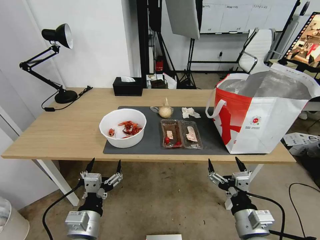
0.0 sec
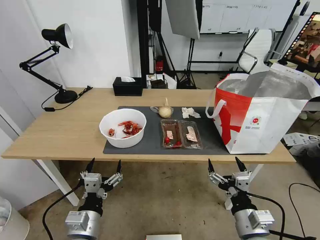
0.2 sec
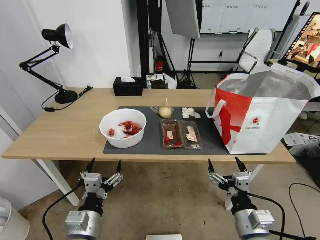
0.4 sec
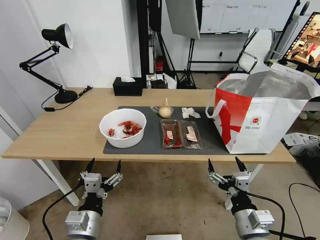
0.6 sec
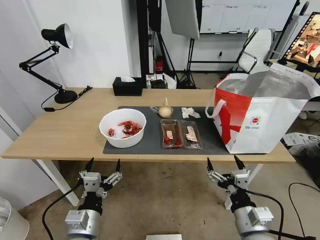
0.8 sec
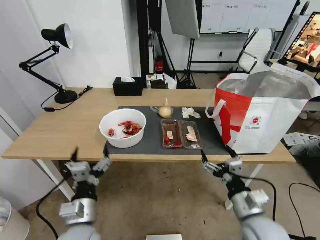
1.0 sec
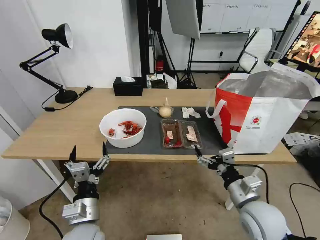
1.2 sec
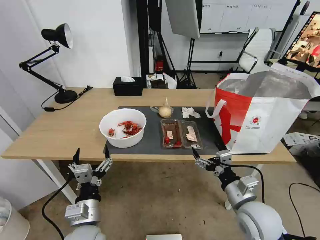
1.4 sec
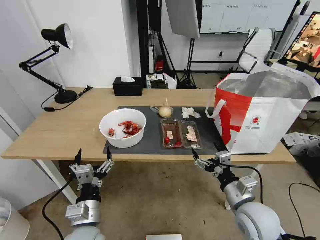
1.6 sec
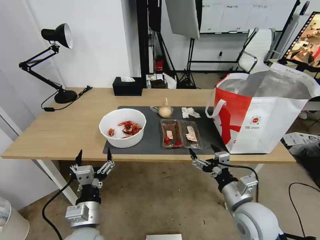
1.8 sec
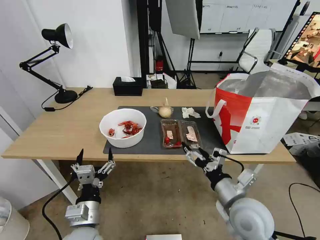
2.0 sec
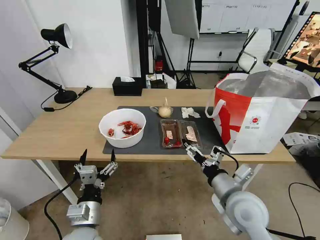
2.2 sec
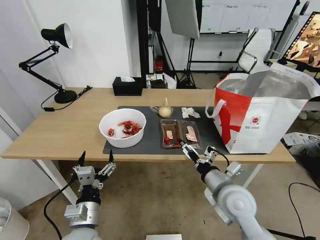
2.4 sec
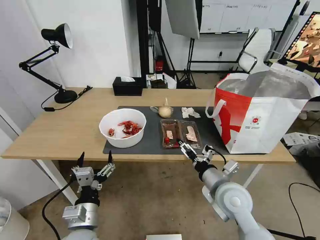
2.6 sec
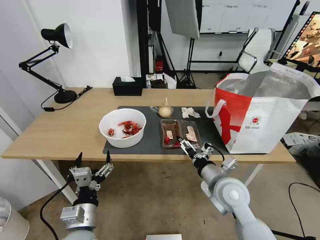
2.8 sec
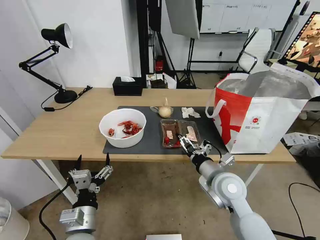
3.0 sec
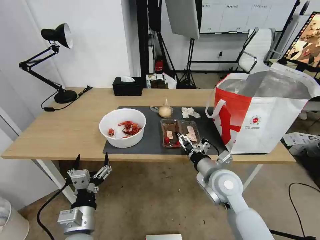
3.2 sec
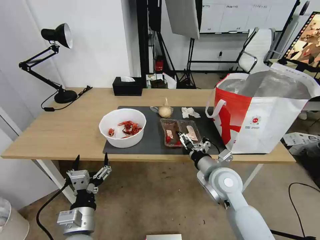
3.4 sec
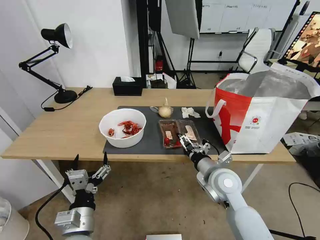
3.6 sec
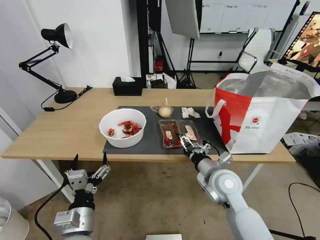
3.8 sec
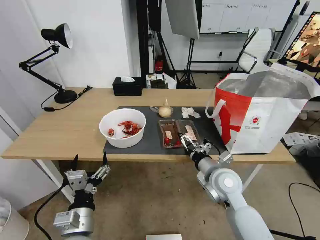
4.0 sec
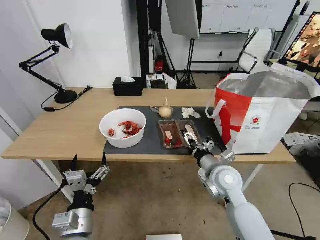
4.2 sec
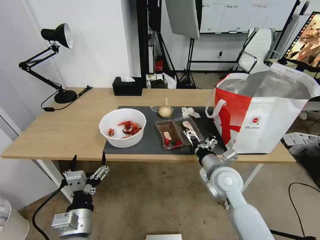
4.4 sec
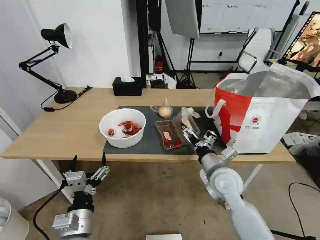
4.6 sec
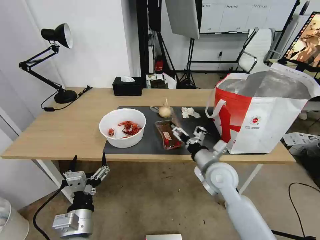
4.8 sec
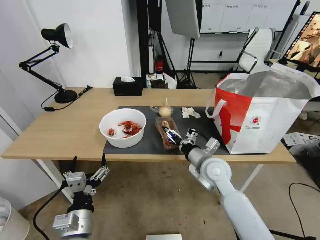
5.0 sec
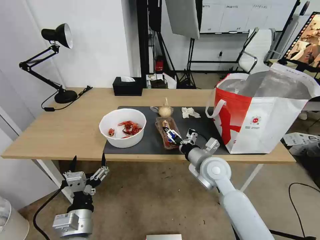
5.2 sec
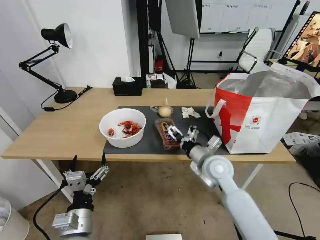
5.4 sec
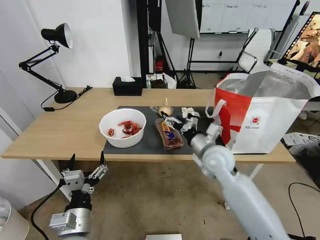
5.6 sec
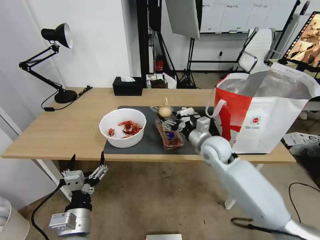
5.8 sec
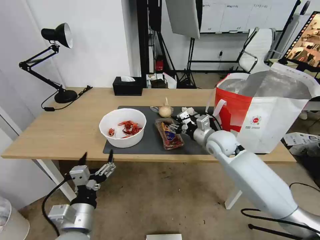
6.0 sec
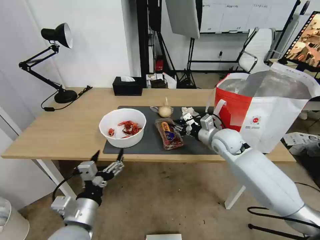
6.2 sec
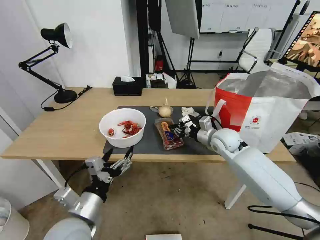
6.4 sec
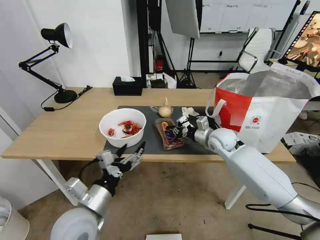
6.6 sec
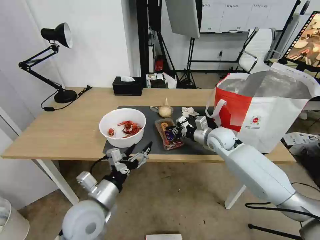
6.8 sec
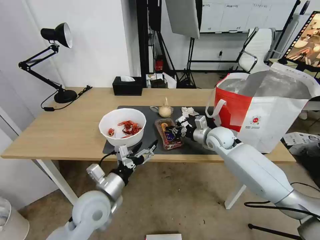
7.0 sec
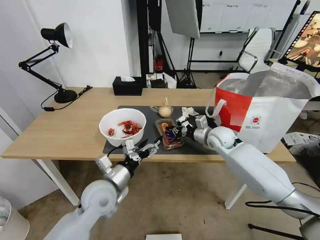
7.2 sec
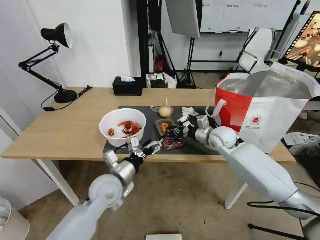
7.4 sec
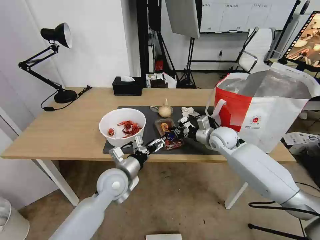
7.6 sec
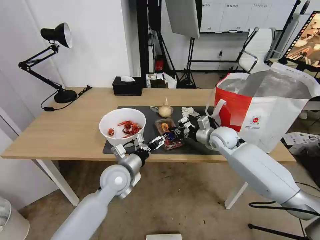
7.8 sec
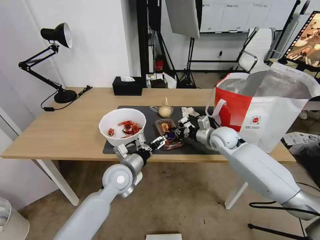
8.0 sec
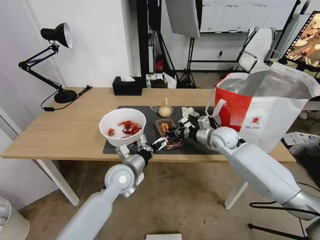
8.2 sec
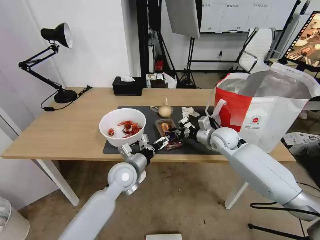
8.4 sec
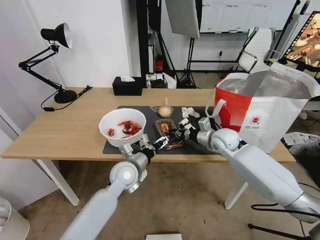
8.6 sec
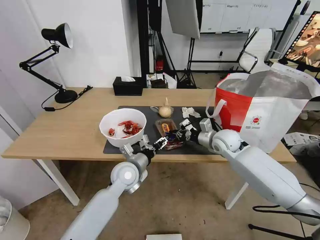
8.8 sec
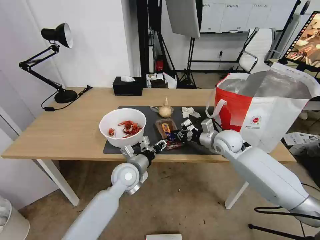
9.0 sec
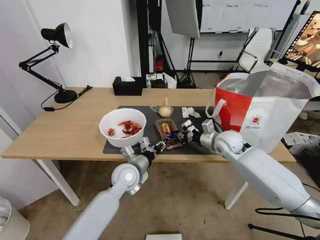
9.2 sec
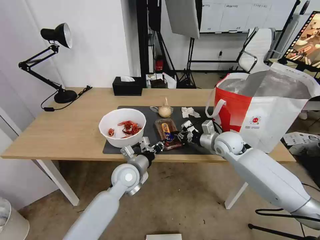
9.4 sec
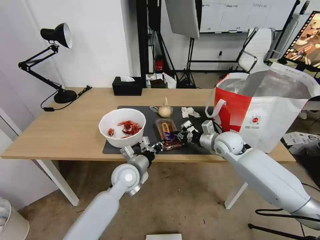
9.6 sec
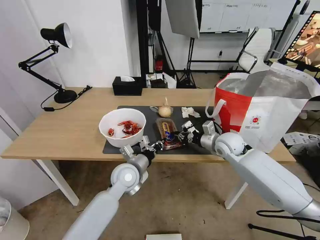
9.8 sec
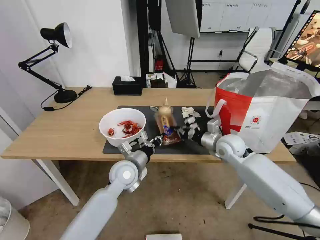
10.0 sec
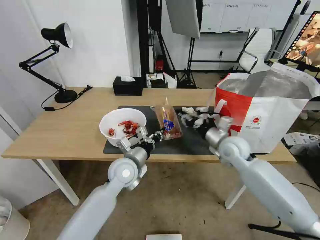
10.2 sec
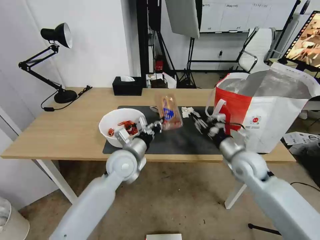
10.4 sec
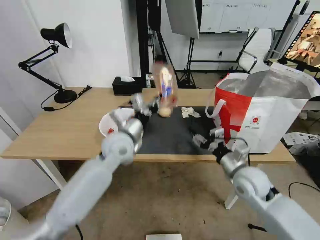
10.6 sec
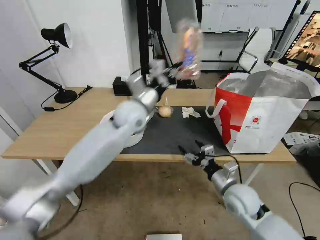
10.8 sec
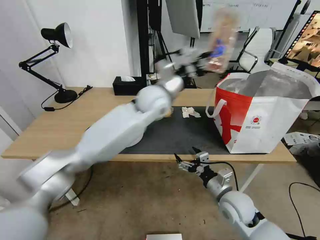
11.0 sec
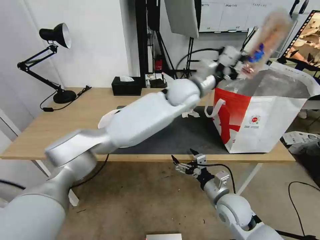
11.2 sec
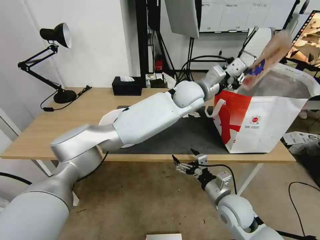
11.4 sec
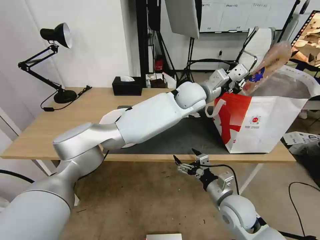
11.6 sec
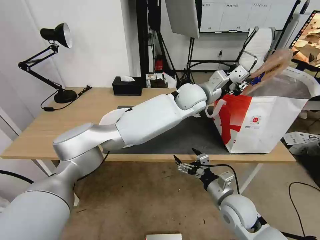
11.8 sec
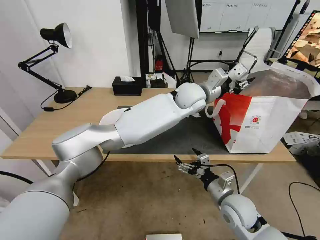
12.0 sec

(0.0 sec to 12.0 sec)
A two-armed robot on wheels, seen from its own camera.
Task of the whole recording: Pick up the trash from the table and place it into the takeout bag.
1.6 sec - 3.0 sec: The right gripper travels forward and to the left by about 10 cm.
3.0 sec - 4.4 sec: There are only small adjustments of the grippers.
4.4 sec - 6.0 sec: The right gripper is displaced forward by some 10 cm, and closes its fingers.
6.0 sec - 7.6 sec: The left gripper moves forward, roughly 15 cm. The right gripper ends up some 5 cm from where it was, and closes up.
7.6 sec - 9.0 sec: The left gripper moves some 5 cm, and closes its fingers.
9.0 sec - 10.4 sec: The left gripper heads upward, covering roughly 5 cm, and closes up, while the right gripper moves backward, roughly 10 cm, and opens up.
10.4 sec - 12.0 sec: The right gripper is displaced backward and downward by about 15 cm, and opens its fingers; the left gripper is displaced to the right, forward and upward by approximately 30 cm, and opens its fingers.

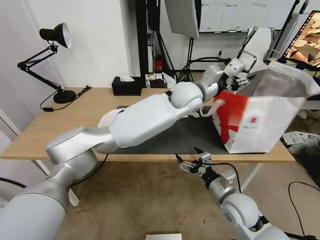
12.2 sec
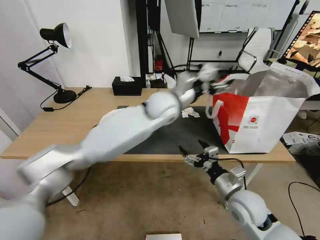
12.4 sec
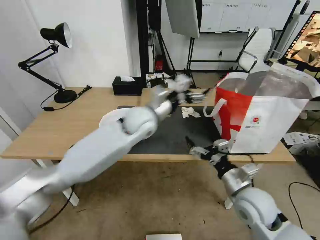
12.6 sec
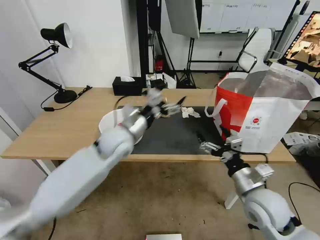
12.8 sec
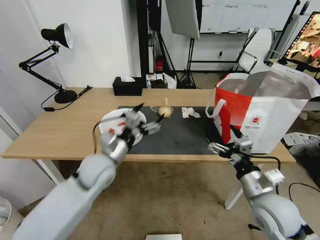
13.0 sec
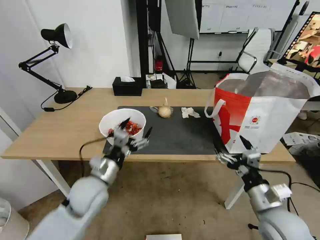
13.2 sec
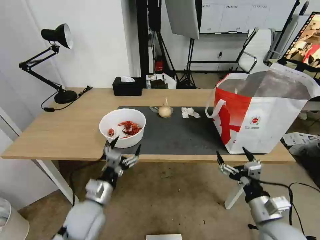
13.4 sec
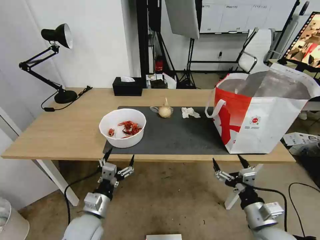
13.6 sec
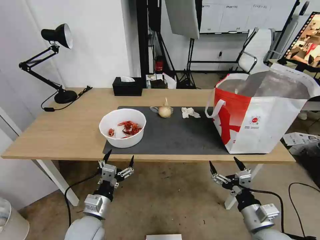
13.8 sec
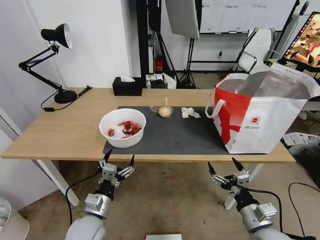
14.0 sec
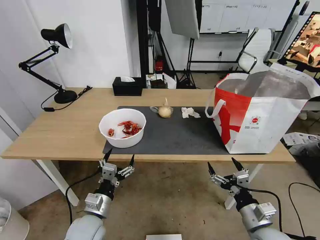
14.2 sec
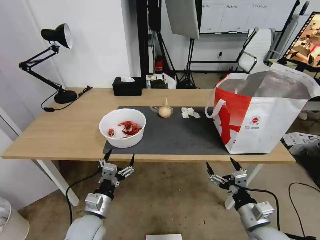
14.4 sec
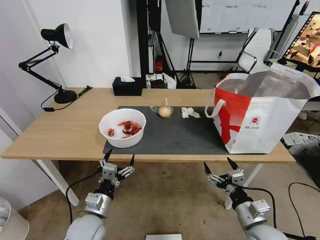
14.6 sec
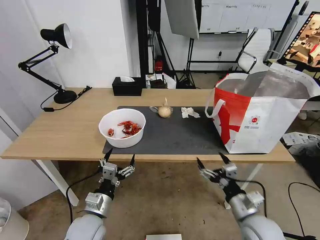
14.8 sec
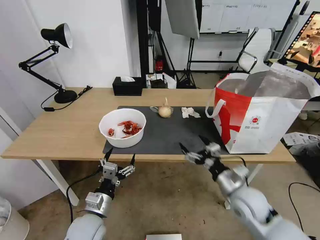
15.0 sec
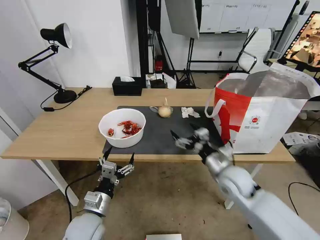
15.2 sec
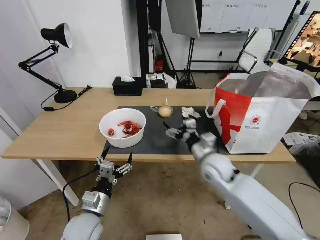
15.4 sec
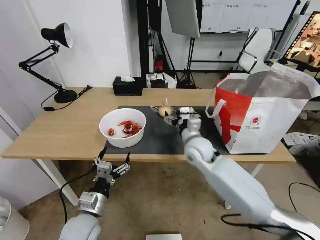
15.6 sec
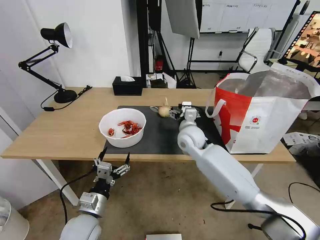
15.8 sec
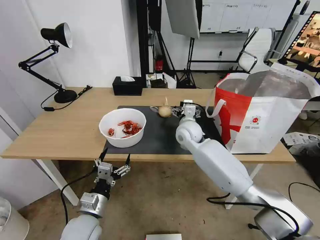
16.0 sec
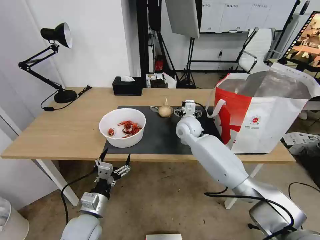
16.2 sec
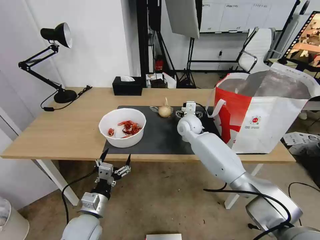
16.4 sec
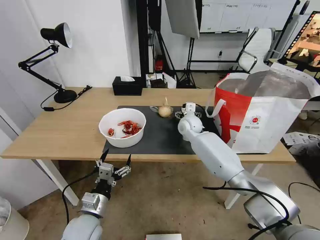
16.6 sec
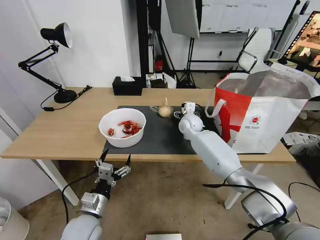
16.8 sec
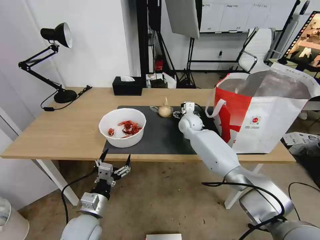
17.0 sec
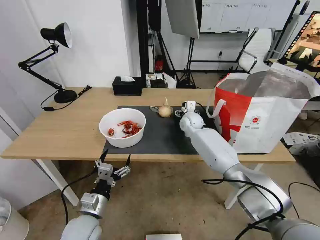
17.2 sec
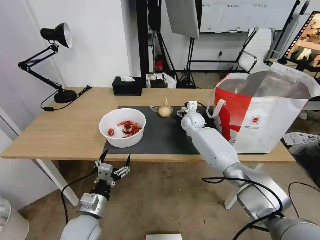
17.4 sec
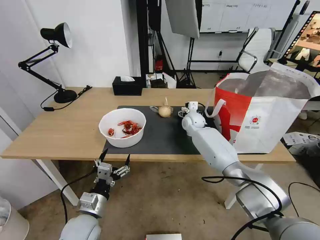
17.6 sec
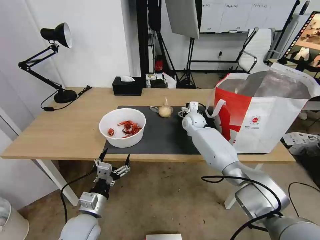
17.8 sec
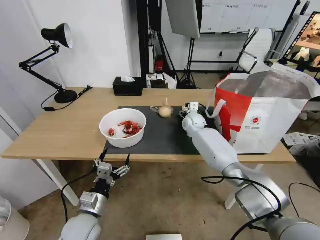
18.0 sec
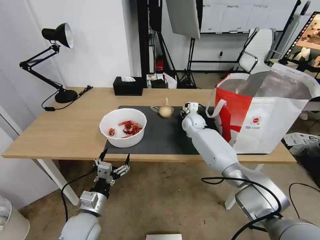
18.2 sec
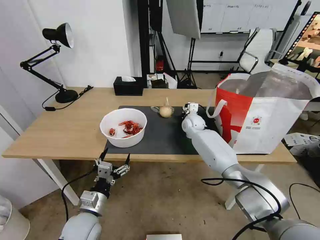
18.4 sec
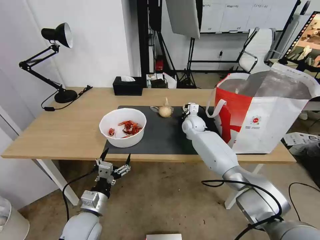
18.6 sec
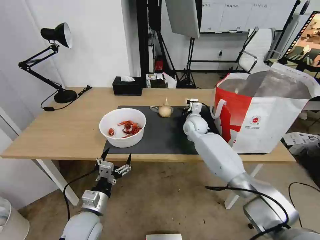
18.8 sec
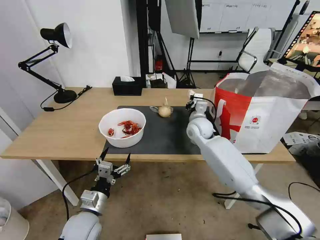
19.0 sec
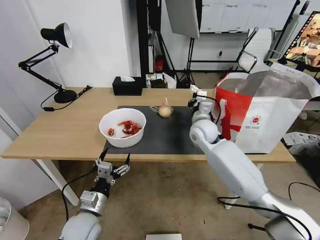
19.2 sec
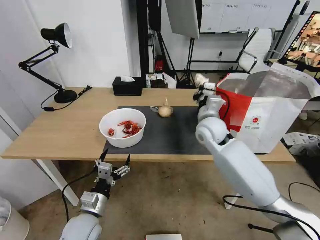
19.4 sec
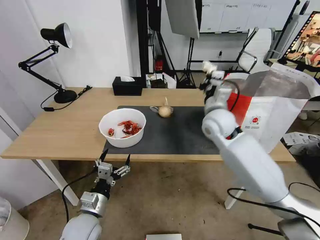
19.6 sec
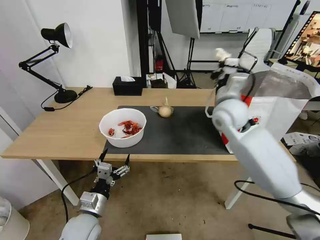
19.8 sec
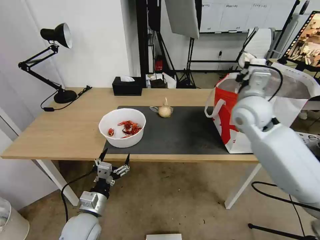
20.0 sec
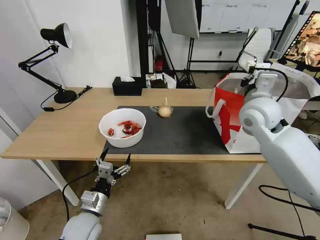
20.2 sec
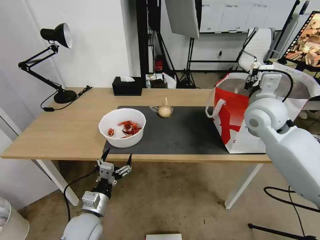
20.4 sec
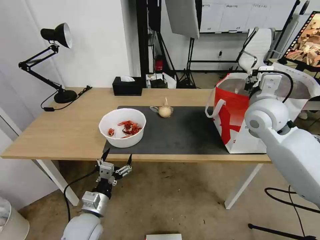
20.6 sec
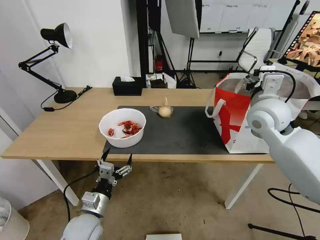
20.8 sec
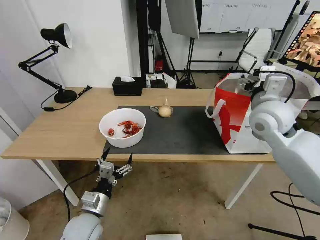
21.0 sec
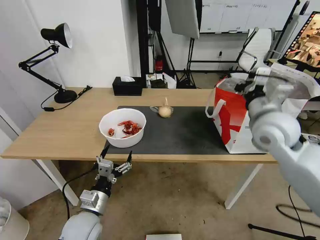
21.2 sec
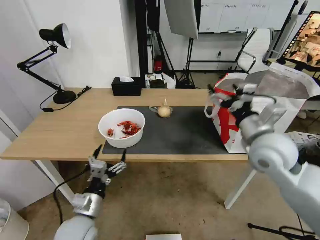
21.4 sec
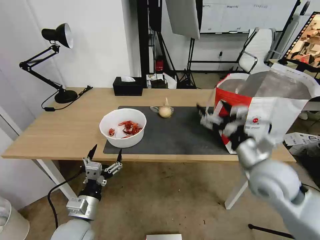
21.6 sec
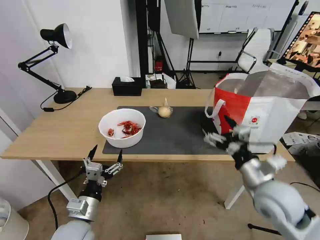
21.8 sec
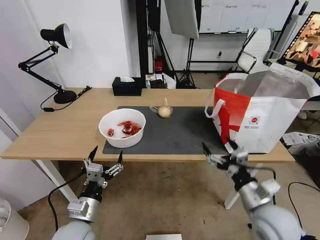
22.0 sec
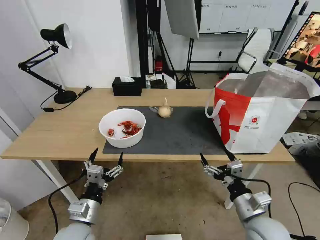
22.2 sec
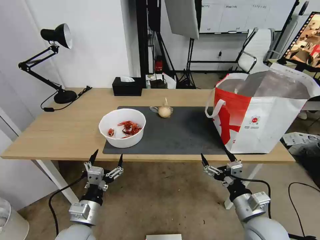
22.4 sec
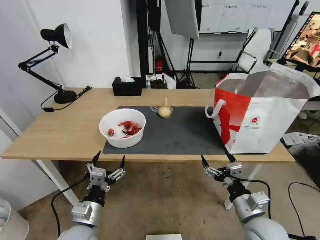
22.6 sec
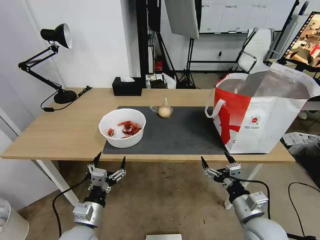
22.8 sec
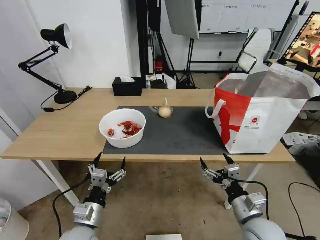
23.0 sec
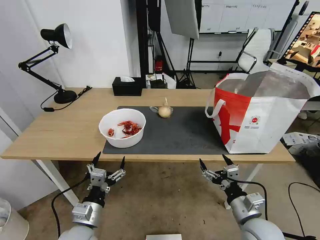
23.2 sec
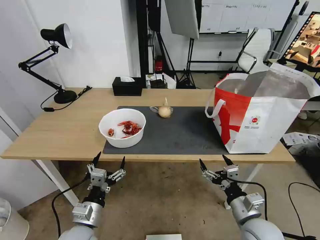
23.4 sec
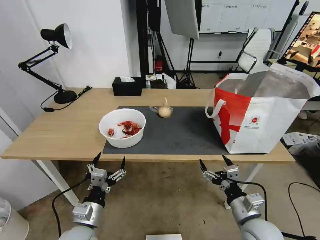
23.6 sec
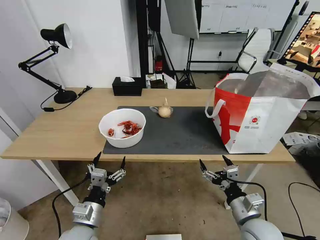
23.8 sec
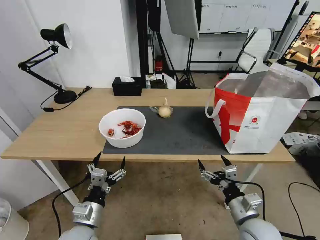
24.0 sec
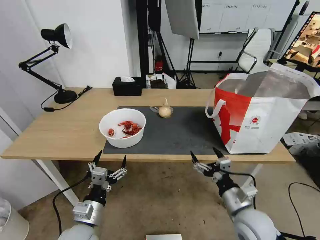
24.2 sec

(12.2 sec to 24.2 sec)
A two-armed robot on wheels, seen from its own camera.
Task of the whole recording: Pick up the trash from the table and place it into the takeout bag.
12.2 sec - 13.8 sec: The left gripper goes approximately 50 cm backward, to the left and downward, and opens. The right gripper heads backward and to the right, covering approximately 10 cm.
13.8 sec - 15.2 sec: The right gripper shifts roughly 15 cm forward.
15.2 sec - 16.6 sec: The right gripper is displaced forward and to the left by roughly 25 cm.
16.6 sec - 18.2 sec: The right gripper changes place by approximately 5 cm, and closes its fingers.
18.2 sec - 19.8 sec: The right gripper heads upward and backward, covering some 25 cm, and closes its fingers.
19.8 sec - 21.2 sec: The right gripper shifts about 10 cm to the right and backward, and opens up.
21.2 sec - 22.6 sec: The right gripper shifts approximately 30 cm downward and backward.
22.6 sec - 24.2 sec: The grippers move only a little.
